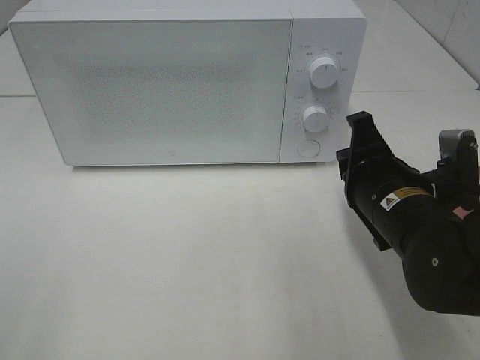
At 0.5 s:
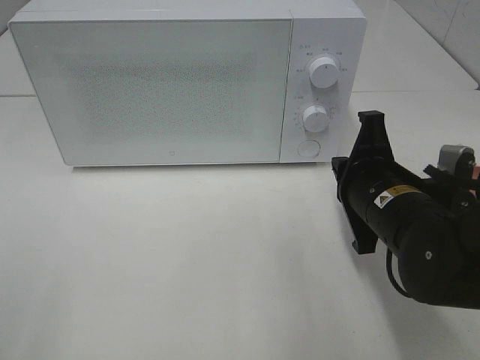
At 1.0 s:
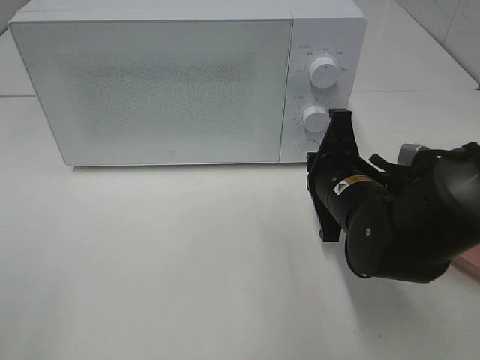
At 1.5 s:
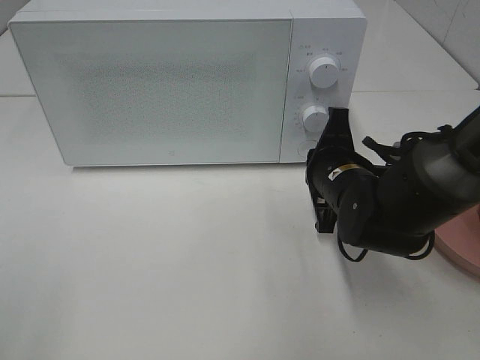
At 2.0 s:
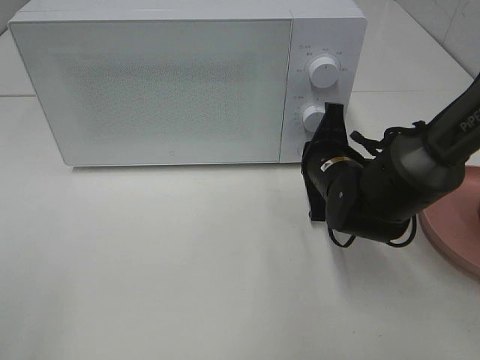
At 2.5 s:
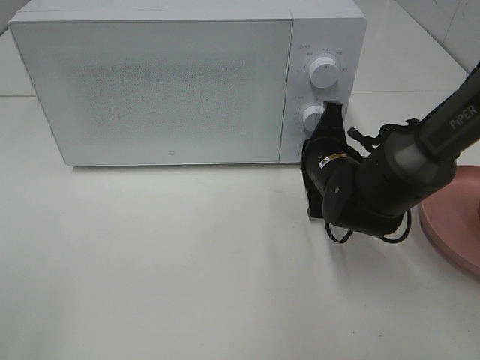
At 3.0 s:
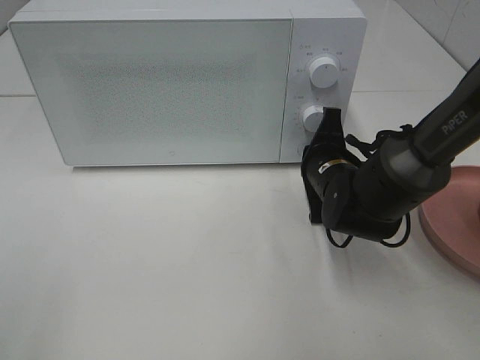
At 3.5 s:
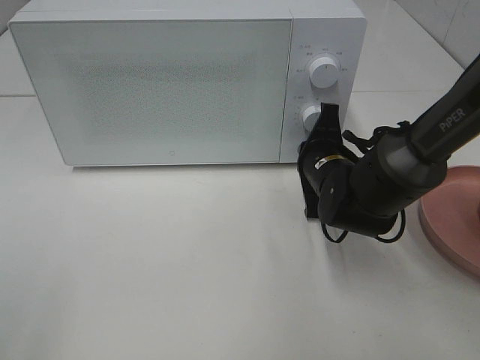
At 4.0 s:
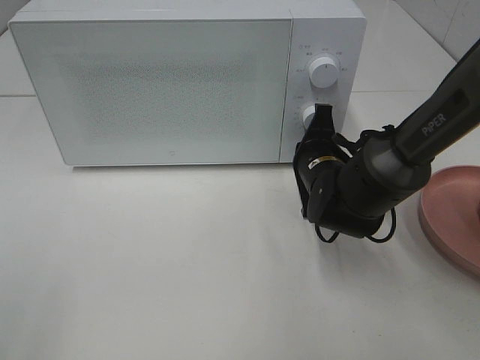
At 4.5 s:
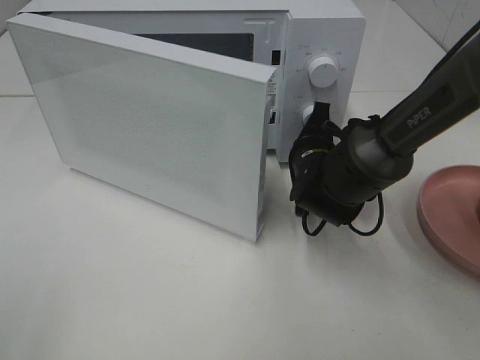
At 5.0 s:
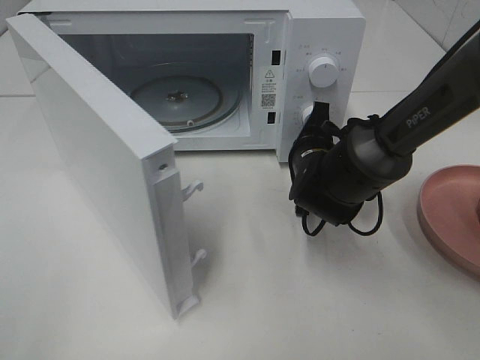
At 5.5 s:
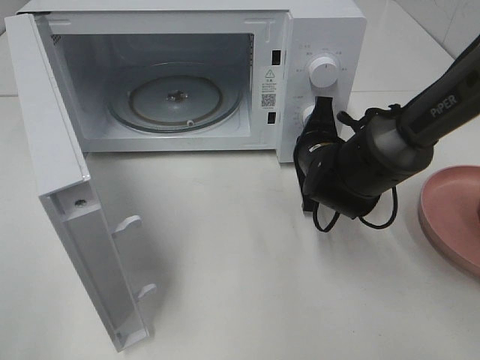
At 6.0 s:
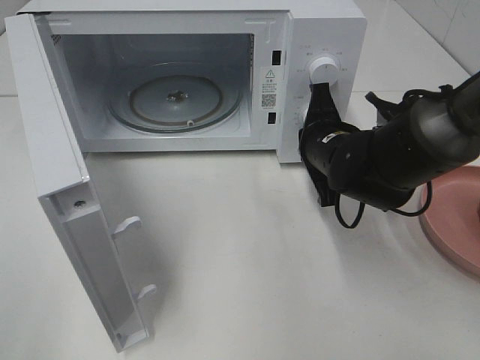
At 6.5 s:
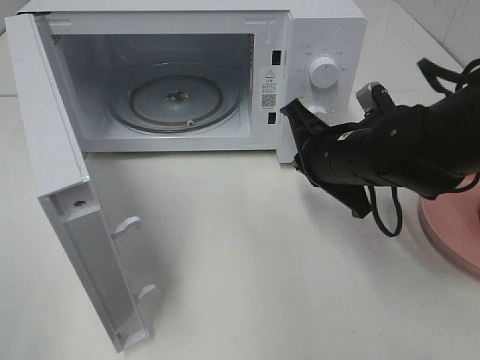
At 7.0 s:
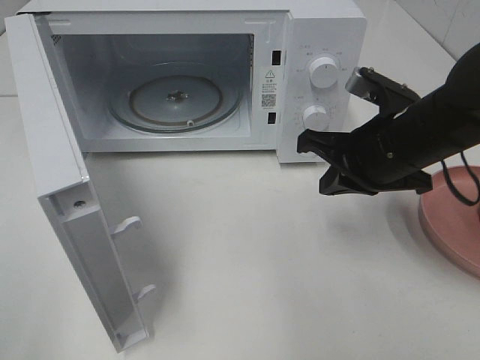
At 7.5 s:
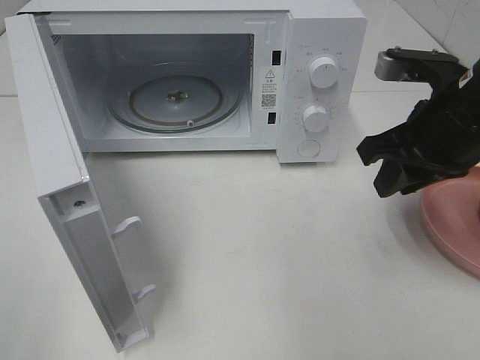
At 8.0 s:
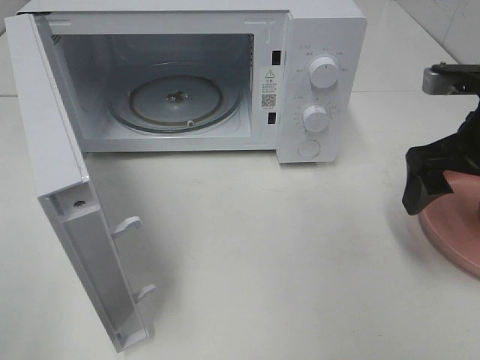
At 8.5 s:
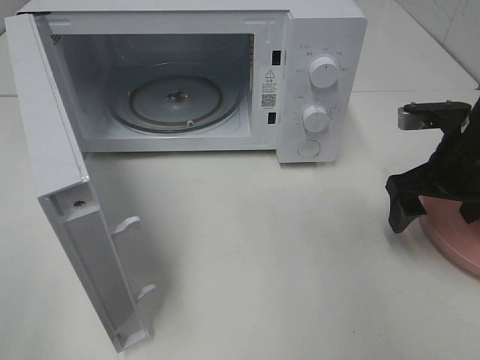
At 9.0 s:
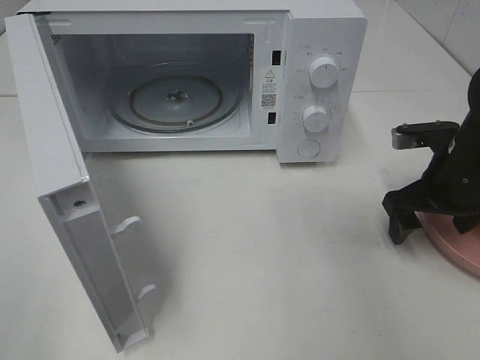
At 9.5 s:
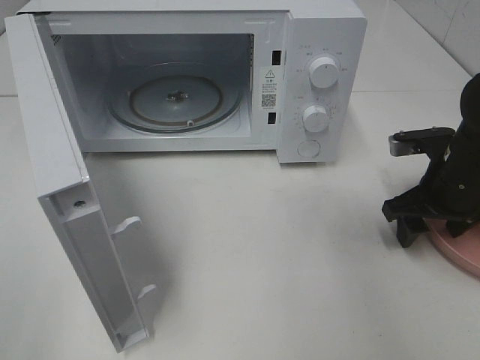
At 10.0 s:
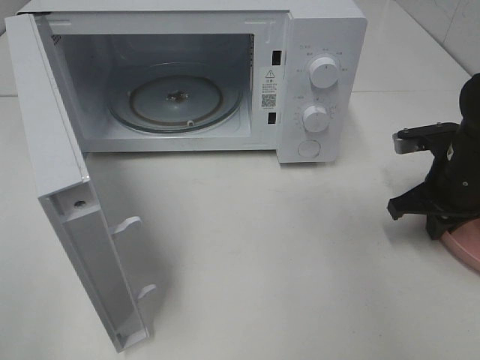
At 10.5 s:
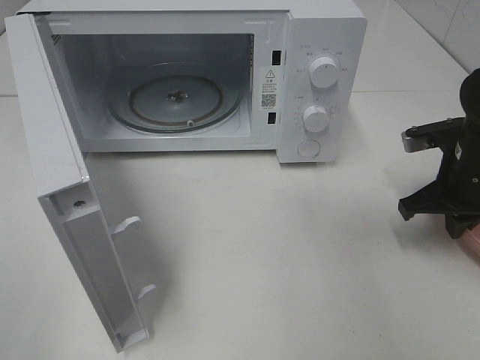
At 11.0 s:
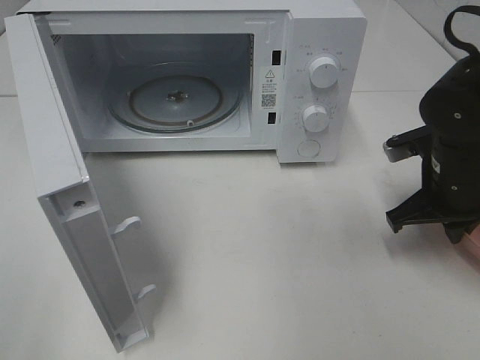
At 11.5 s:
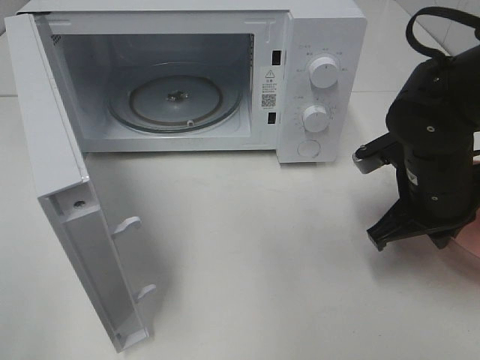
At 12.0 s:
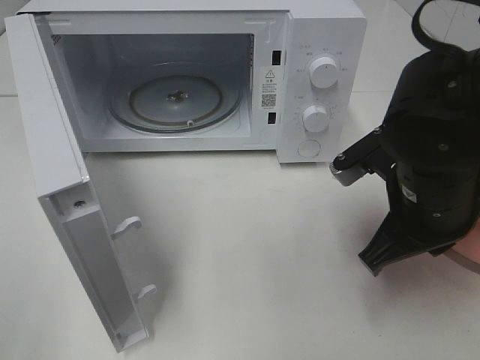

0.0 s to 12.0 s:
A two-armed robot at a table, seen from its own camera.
Task of the whole recording: Heat the burger.
Step, 0.0 to 5.5 s: Right hand: press the switch.
Step, 6.0 to 10.0 s: Right hand: grab the plate with the hamburger.
0.0 to 2.0 s: The right gripper shifts about 10 cm forward.
2.0 to 4.0 s: The grippers move only a little.
6.0 to 8.0 s: The right gripper goes some 15 cm to the right, upward and backward, and opens its fingers.
8.0 to 10.0 s: The right gripper moves downward, some 10 cm, and closes its fingers.
10.0 to 12.0 s: The right gripper moves to the left, backward and upward, some 15 cm.

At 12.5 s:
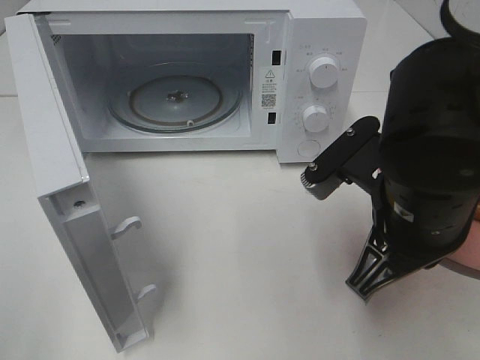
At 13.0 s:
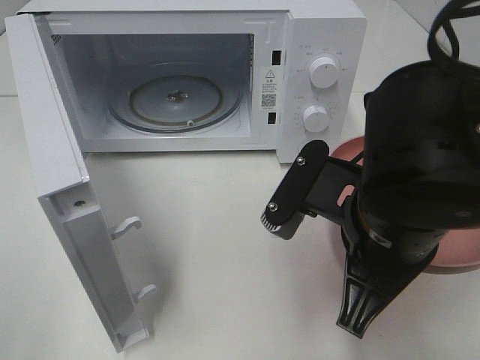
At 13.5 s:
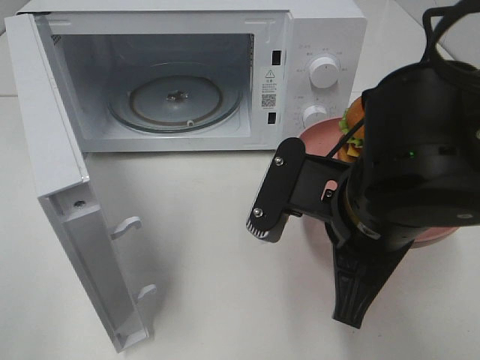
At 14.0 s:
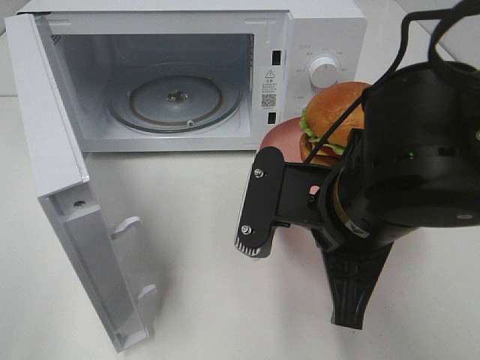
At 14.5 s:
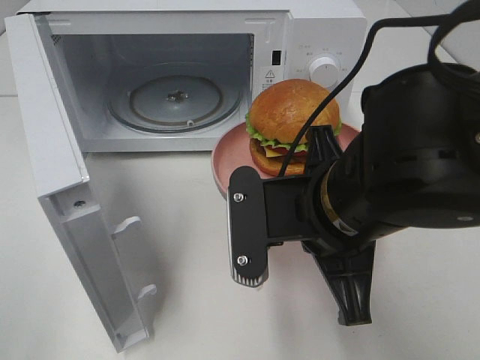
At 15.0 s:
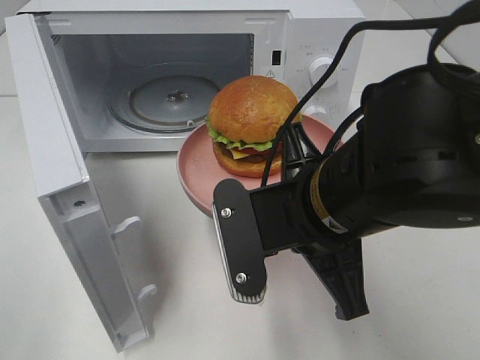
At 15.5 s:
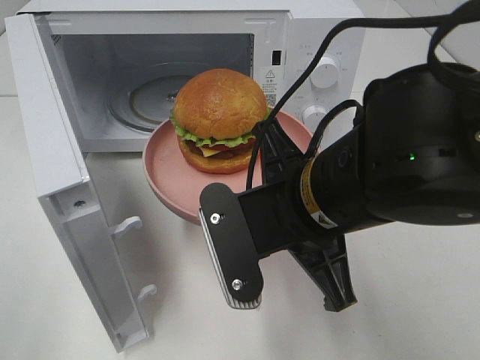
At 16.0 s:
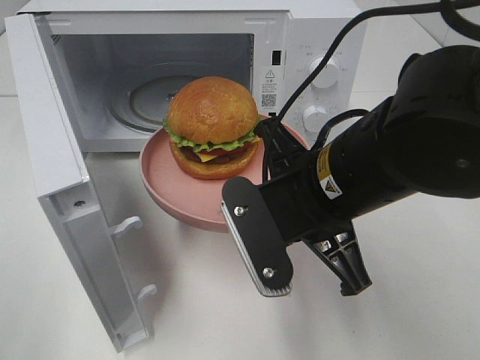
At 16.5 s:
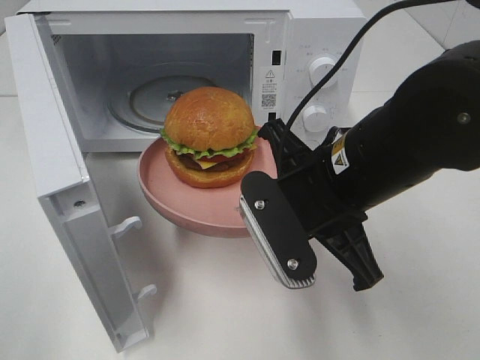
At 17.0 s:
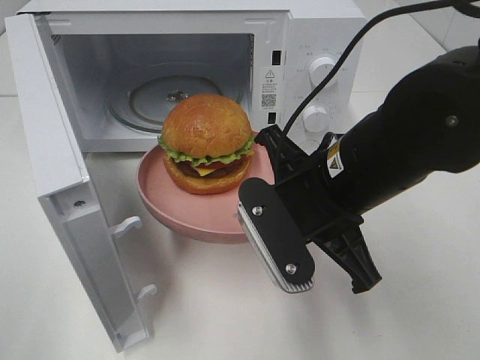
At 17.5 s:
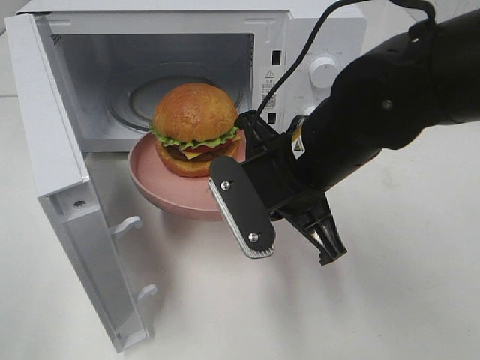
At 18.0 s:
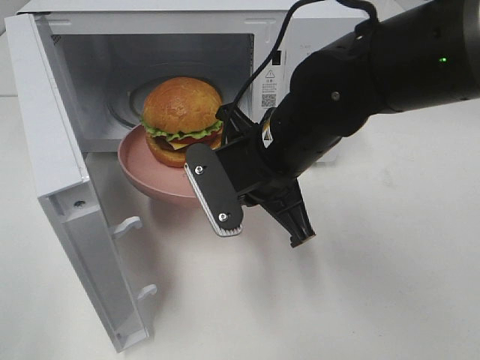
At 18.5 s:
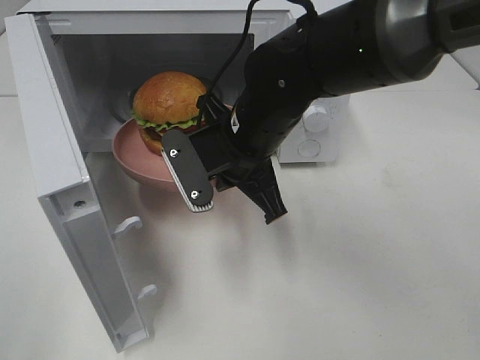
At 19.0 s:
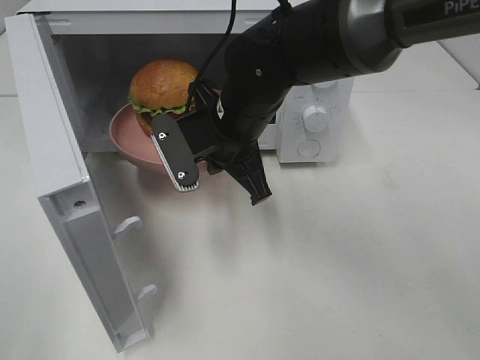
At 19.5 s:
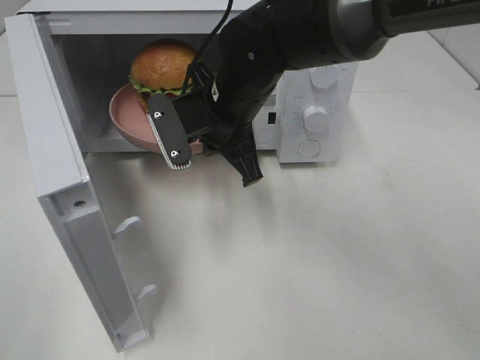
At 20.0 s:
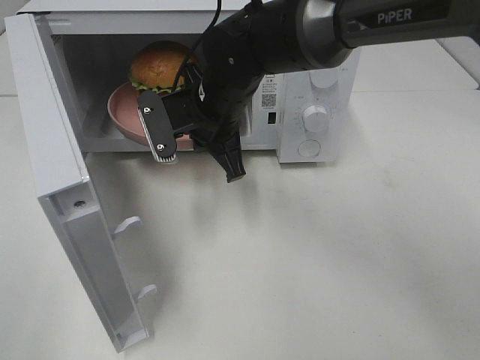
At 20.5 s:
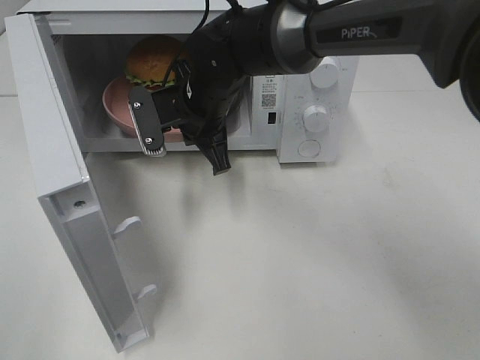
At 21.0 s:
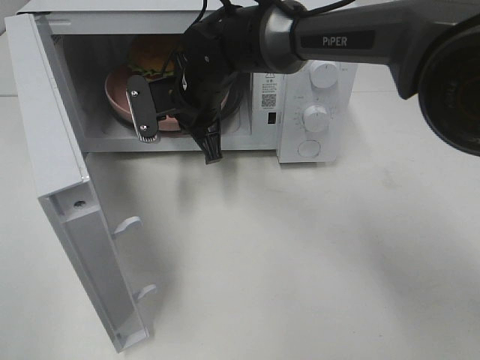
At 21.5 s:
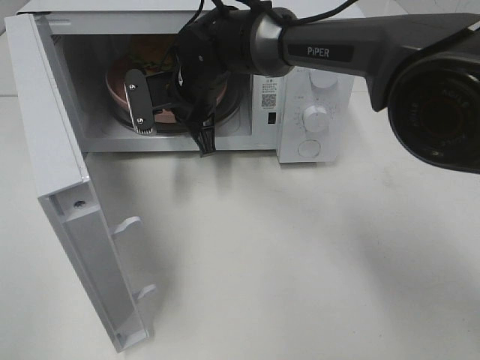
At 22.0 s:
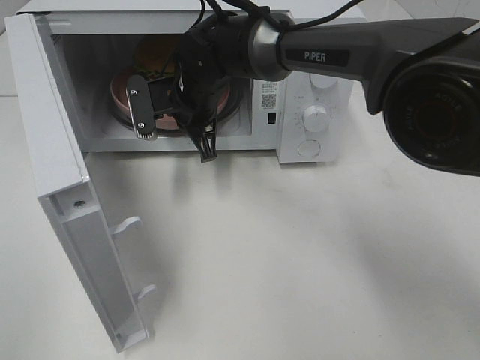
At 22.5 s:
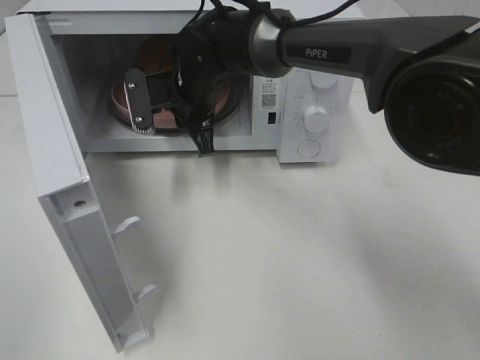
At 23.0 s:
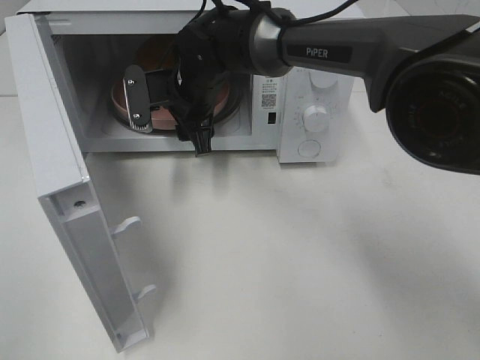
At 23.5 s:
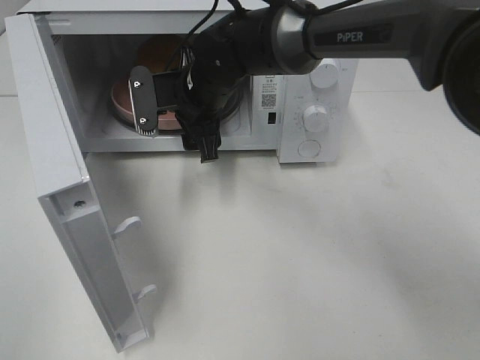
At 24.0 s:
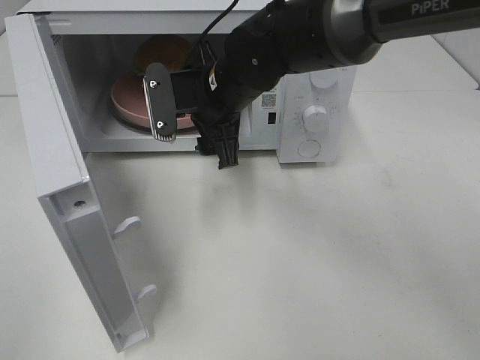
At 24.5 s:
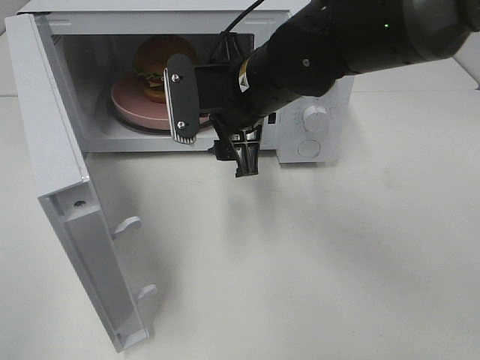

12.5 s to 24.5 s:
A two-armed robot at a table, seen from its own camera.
Task of the whole recording: Heat the burger.
Step, 12.5 to 22.5 s: Right hand: place the plate in the microwave.
12.5 to 14.5 s: The right gripper is displaced to the left by approximately 5 cm.
16.5 to 18.5 s: The right gripper shifts some 10 cm forward and to the left.
18.5 to 20.5 s: The right gripper shifts approximately 10 cm forward.
20.5 to 22.5 s: The grippers move only a little.
22.5 to 24.5 s: The right gripper heads backward, to the right and upward, covering approximately 15 cm, and opens up.

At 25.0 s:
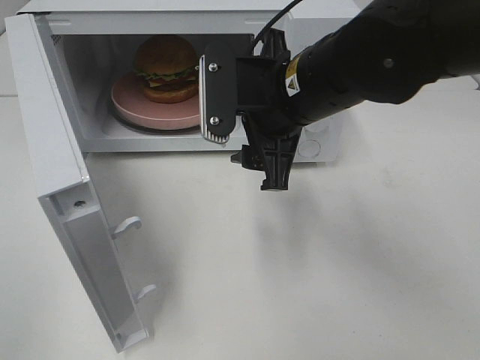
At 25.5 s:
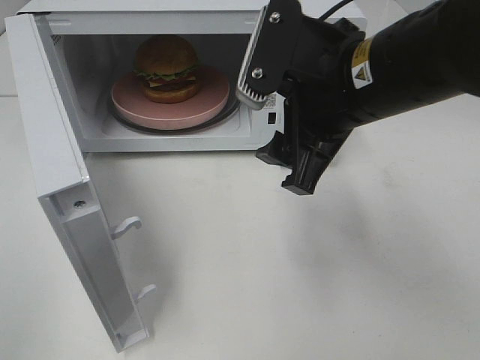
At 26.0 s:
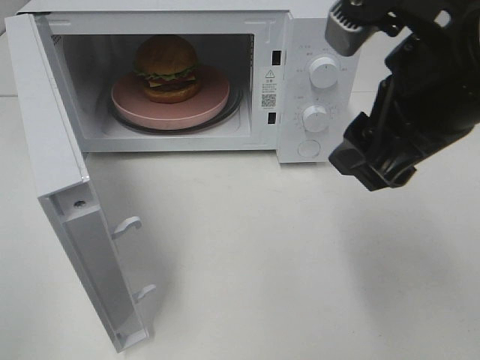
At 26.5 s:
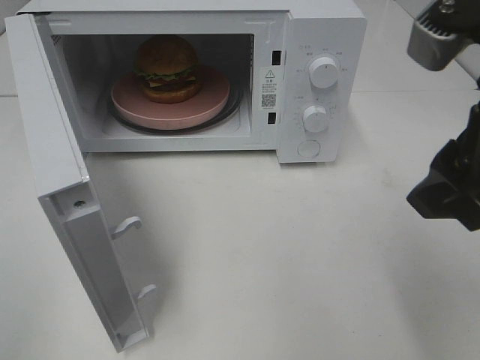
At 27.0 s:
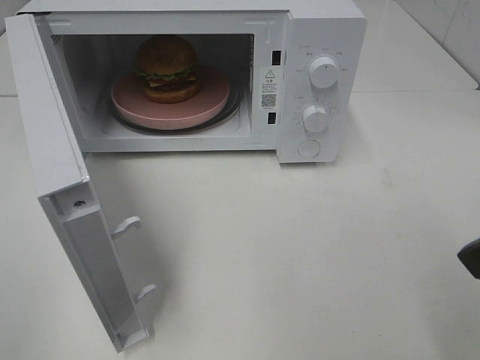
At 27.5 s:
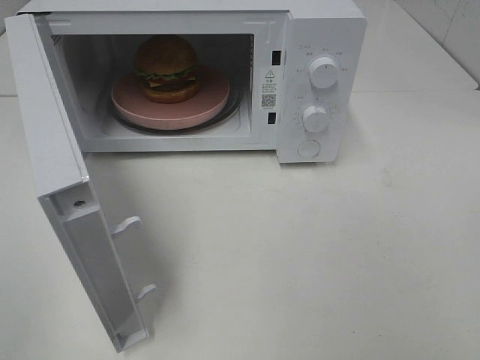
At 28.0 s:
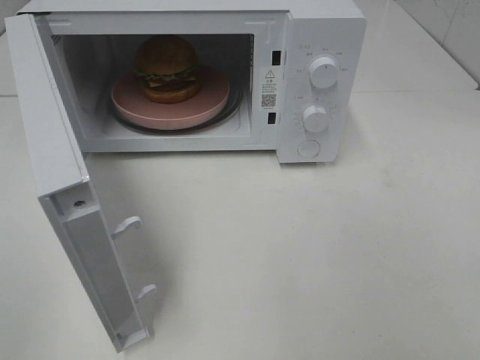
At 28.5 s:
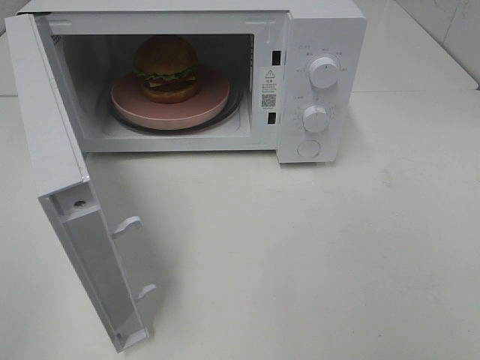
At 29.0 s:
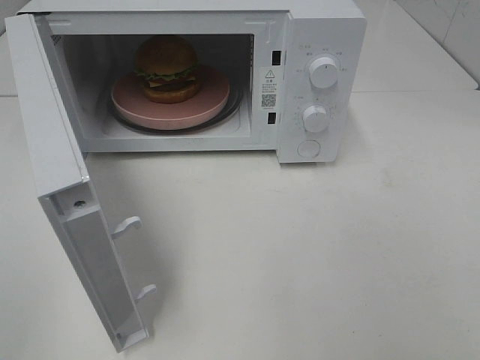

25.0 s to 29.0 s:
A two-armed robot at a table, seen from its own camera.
Task of the whole recording: Heat the burger.
25.0 to 27.0 s: The right gripper moves backward, to the right and upward, roughly 25 cm.
27.0 to 29.0 s: The right gripper shifts about 15 cm backward and to the right.
